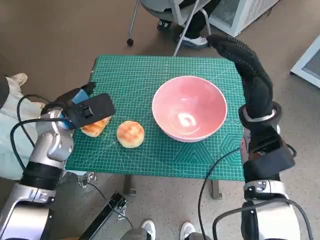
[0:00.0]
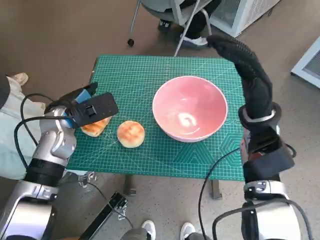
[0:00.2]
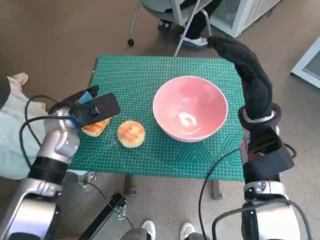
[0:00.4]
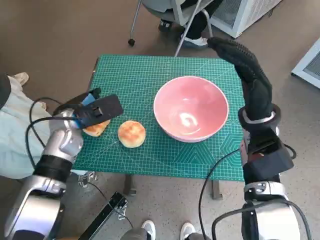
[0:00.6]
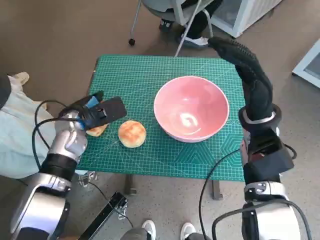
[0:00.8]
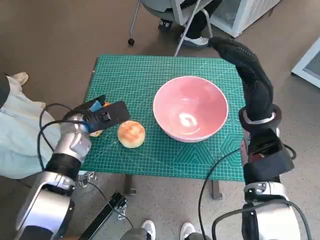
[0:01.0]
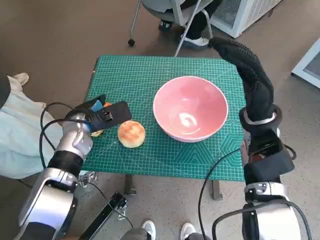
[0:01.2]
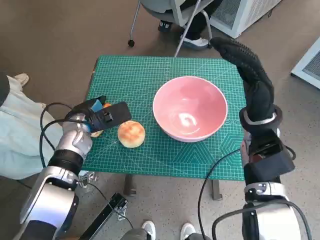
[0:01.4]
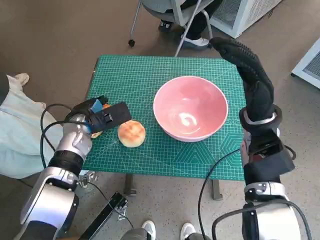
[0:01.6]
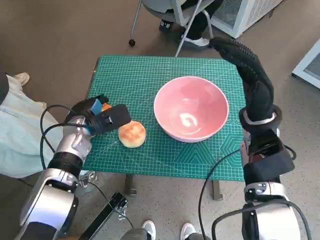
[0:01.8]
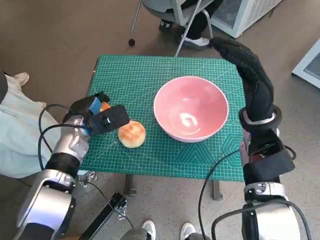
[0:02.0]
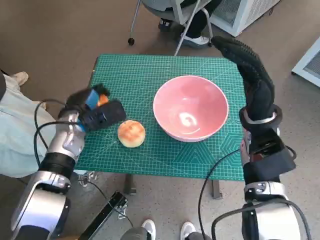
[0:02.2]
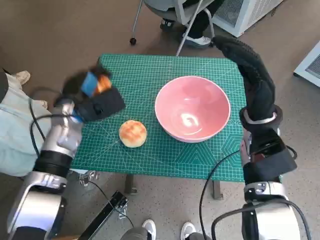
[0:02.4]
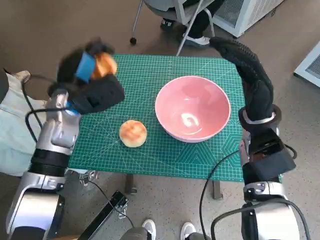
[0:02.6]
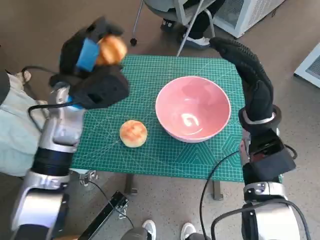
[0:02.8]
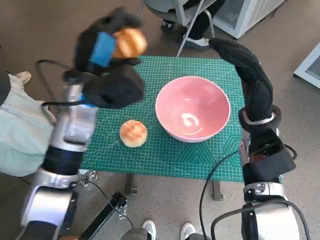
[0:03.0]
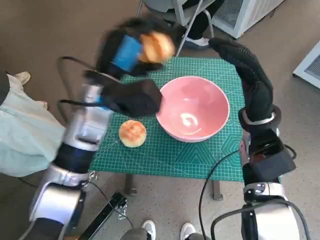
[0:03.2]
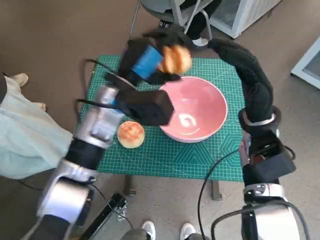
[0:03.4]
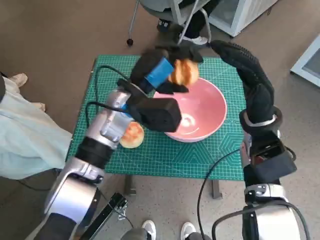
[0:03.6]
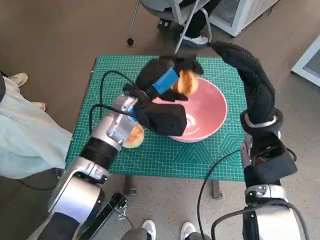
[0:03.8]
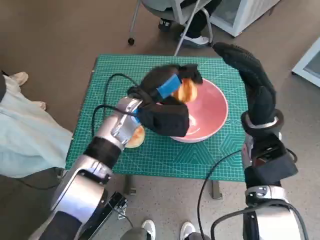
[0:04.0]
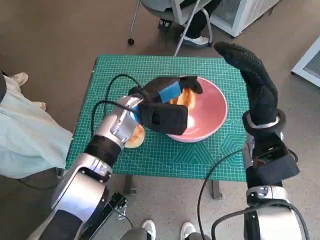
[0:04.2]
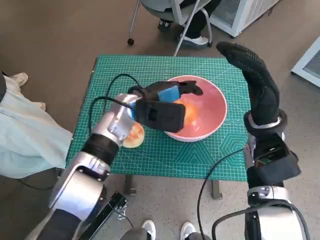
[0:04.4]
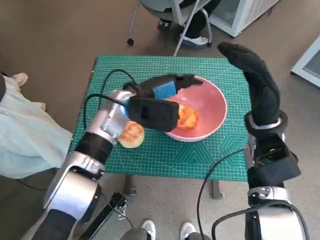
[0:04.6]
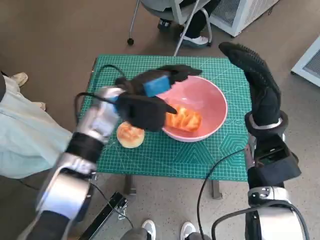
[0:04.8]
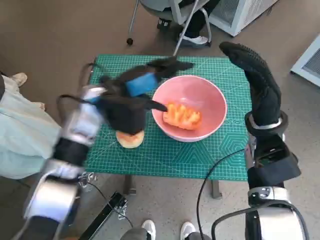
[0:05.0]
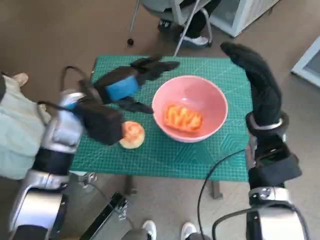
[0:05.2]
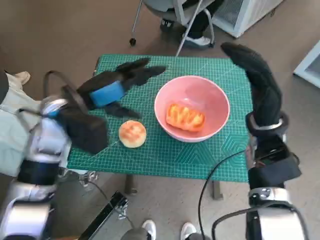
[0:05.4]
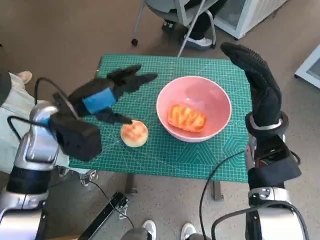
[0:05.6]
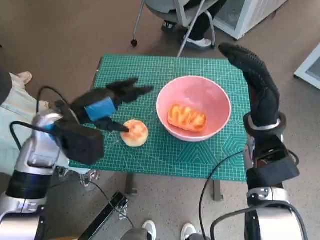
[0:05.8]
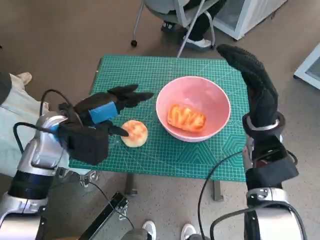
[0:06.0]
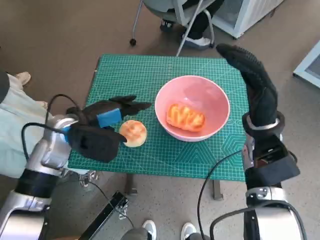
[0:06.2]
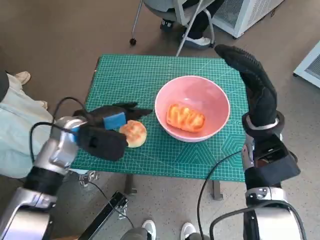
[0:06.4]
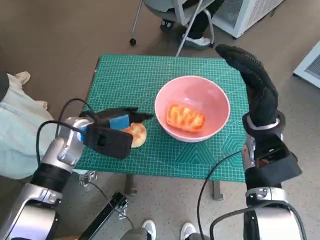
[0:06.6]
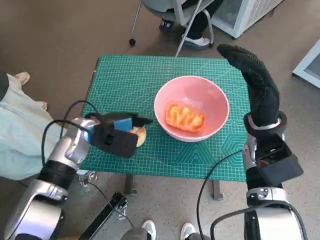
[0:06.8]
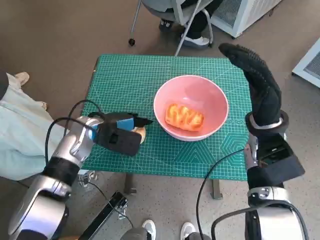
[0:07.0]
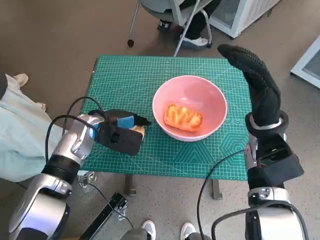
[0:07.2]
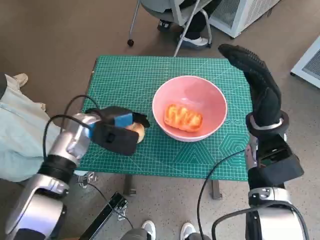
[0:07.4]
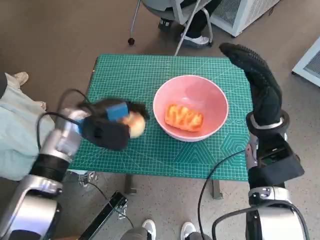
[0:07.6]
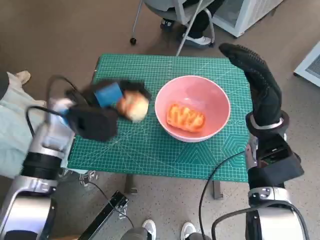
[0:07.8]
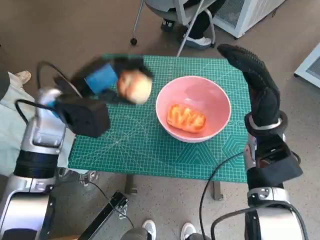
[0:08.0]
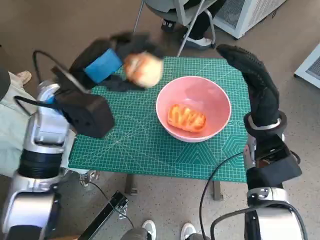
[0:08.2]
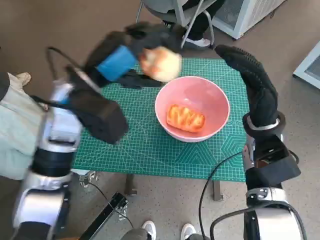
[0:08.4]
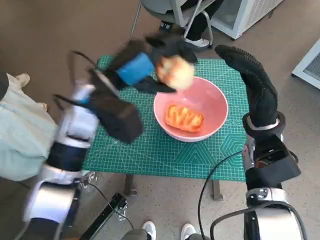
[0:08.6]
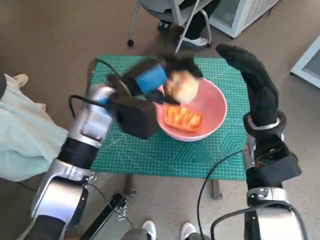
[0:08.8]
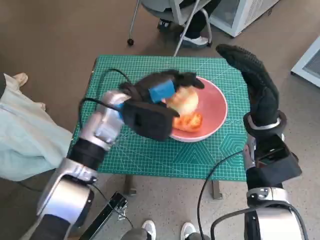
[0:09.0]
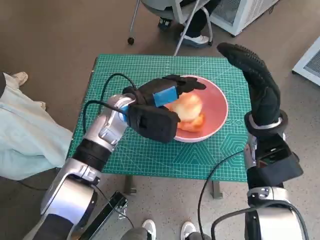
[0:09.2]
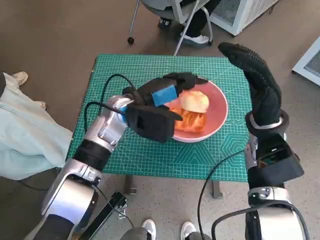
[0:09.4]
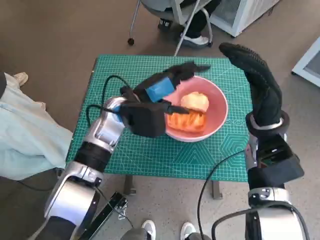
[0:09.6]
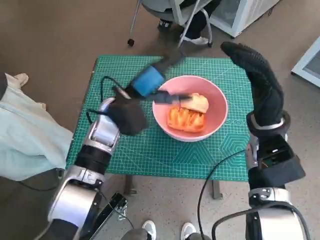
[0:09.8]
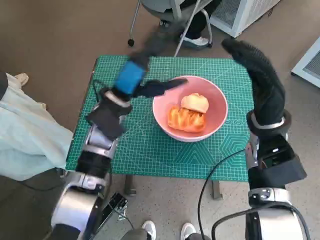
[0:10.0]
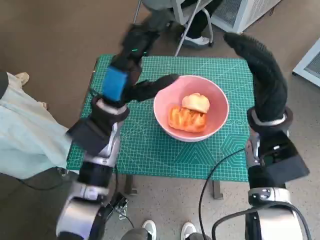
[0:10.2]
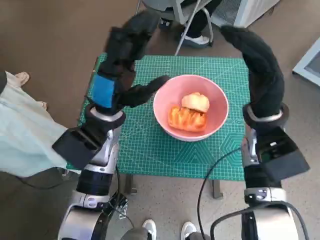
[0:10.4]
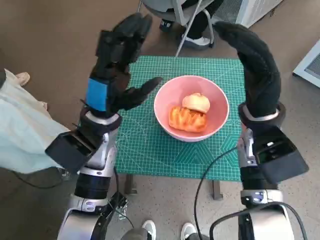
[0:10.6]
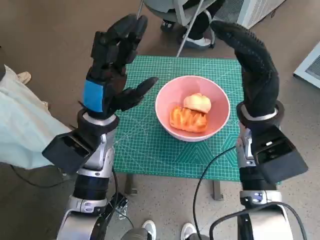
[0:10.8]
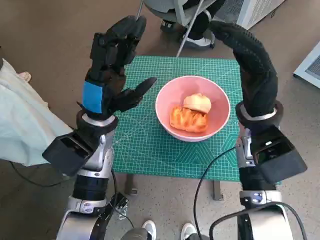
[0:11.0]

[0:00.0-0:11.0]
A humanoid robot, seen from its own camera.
Task of the whole recording: Push the bowl to the center of the table and put the bread into the bowl.
Step, 0:02.0 to 0:04.4: Place the long bread in pink bowl with left hand.
Step, 0:04.6 to 0:07.2: Grasp the round bread with left hand.
Step, 0:07.4 to 0:09.2: Place the round bread in pink bowl with left hand.
0:00.0 to 0:01.6: The left hand moves downward, approximately 5 cm.
0:01.6 to 0:03.2: The left hand moves upward and to the right, some 15 cm.
0:04.8 to 0:06.2: The left hand travels to the left and backward by some 10 cm.
0:07.8 to 0:09.4: The left hand travels to the right by roughly 10 cm.
0:09.4 to 0:11.0: The left hand is displaced backward by some 5 cm.

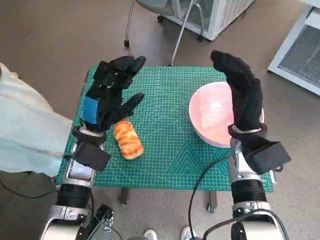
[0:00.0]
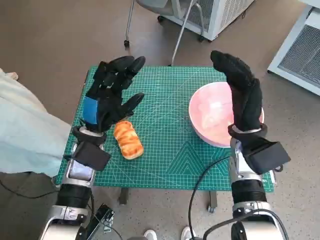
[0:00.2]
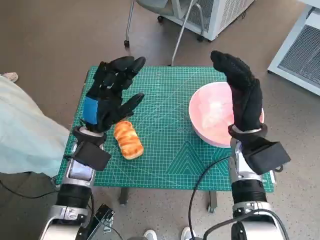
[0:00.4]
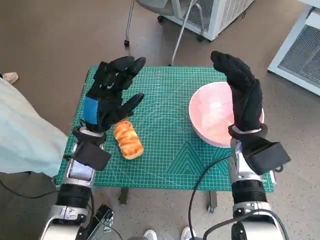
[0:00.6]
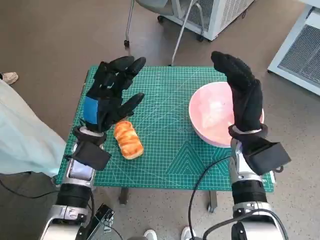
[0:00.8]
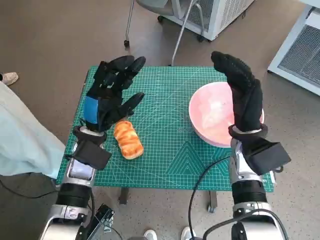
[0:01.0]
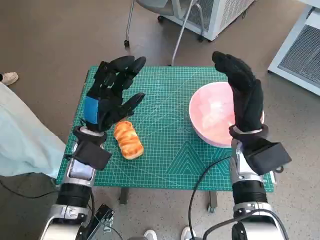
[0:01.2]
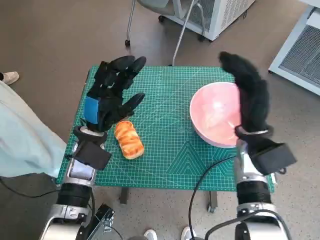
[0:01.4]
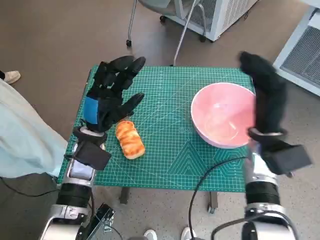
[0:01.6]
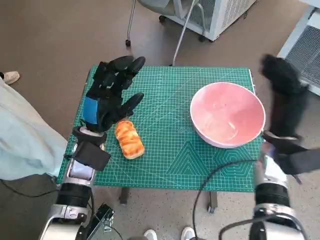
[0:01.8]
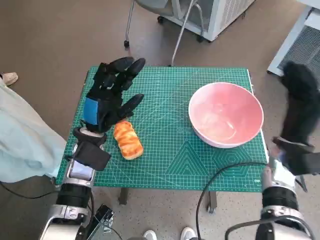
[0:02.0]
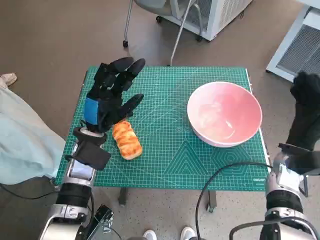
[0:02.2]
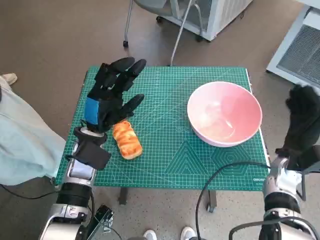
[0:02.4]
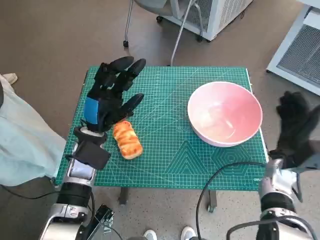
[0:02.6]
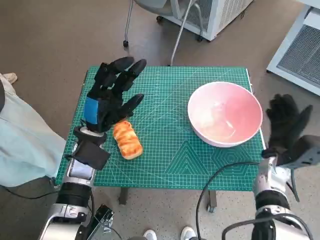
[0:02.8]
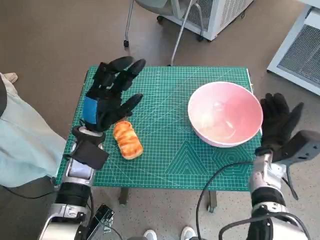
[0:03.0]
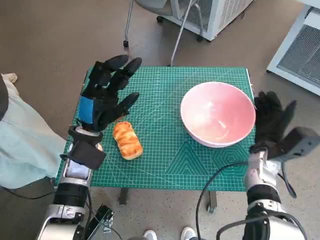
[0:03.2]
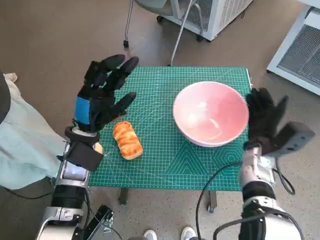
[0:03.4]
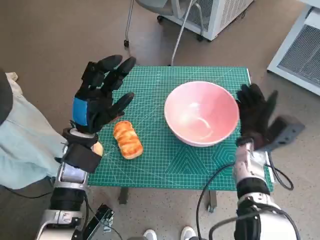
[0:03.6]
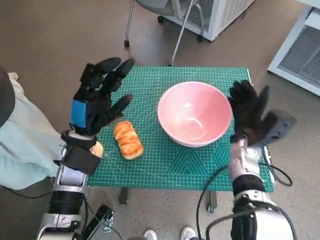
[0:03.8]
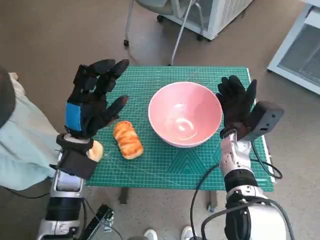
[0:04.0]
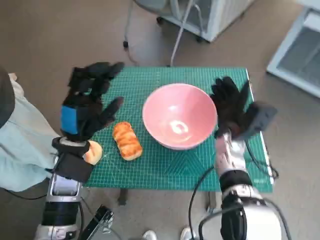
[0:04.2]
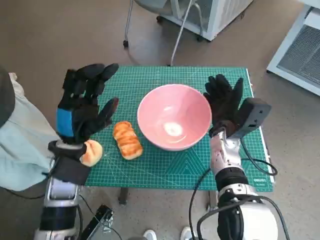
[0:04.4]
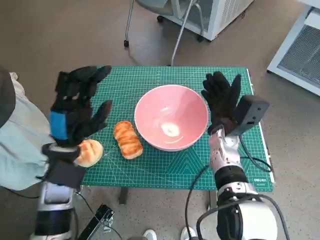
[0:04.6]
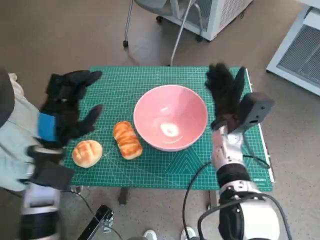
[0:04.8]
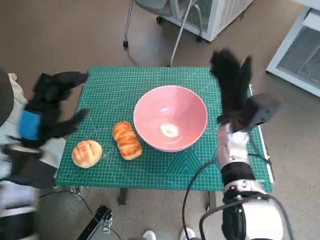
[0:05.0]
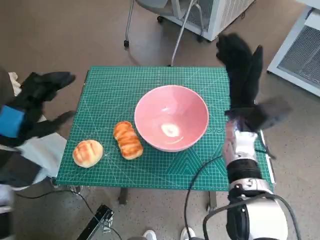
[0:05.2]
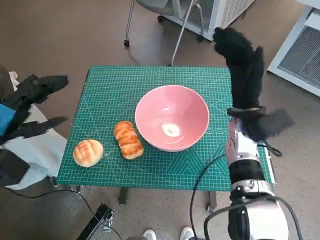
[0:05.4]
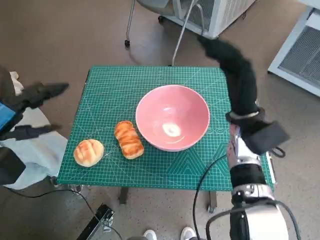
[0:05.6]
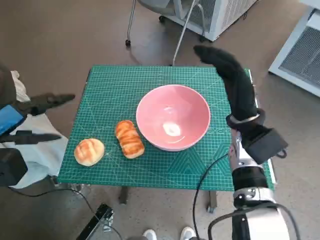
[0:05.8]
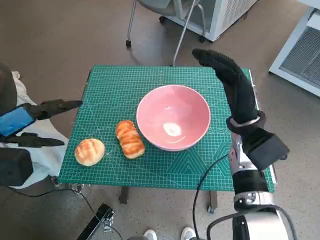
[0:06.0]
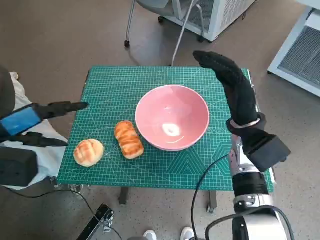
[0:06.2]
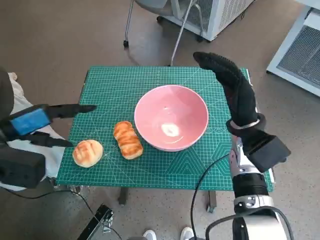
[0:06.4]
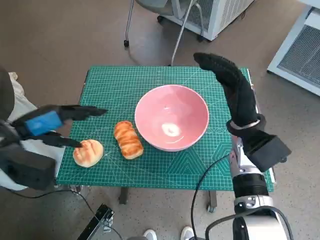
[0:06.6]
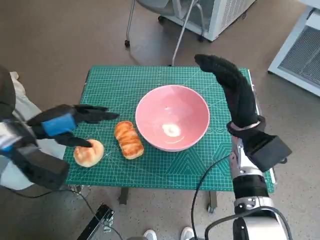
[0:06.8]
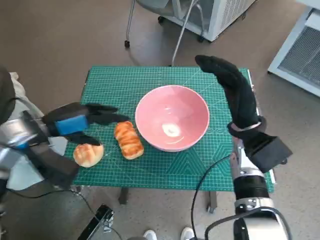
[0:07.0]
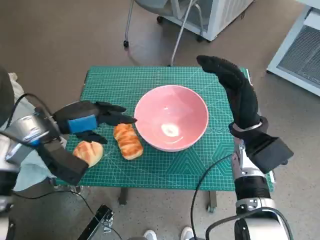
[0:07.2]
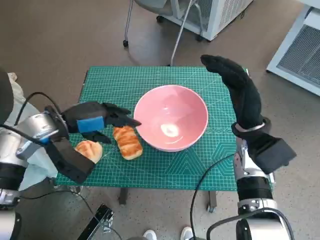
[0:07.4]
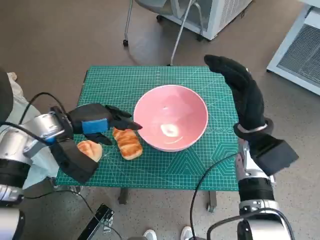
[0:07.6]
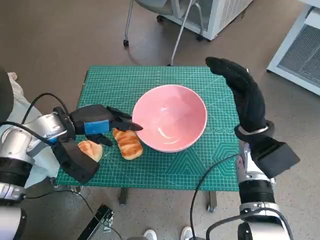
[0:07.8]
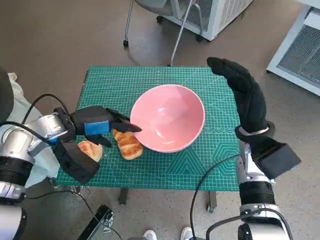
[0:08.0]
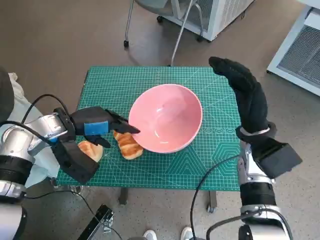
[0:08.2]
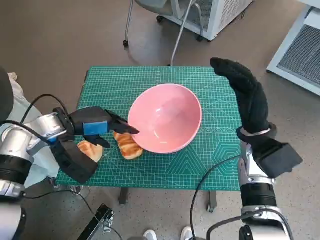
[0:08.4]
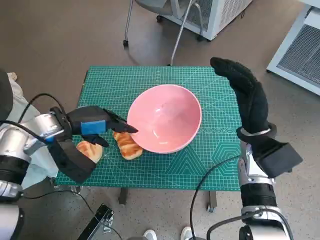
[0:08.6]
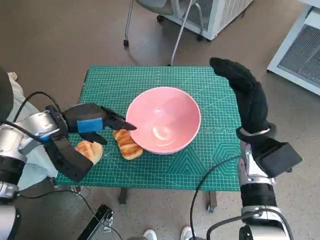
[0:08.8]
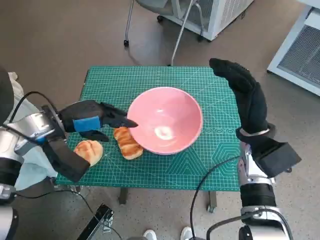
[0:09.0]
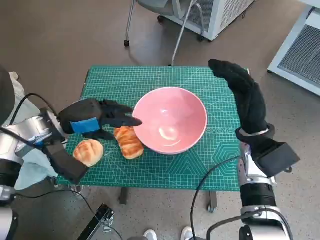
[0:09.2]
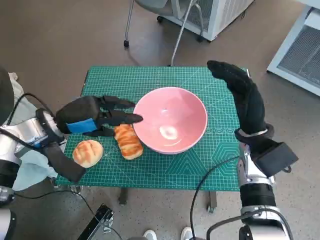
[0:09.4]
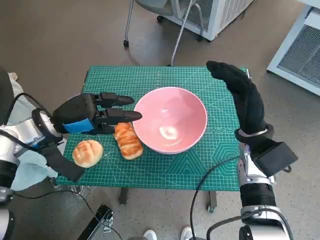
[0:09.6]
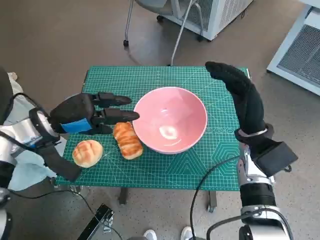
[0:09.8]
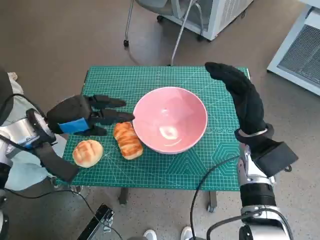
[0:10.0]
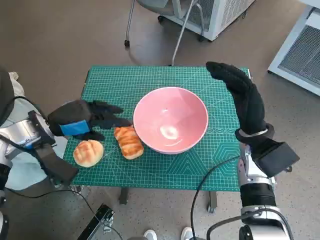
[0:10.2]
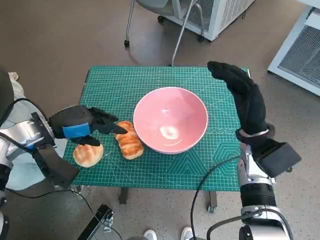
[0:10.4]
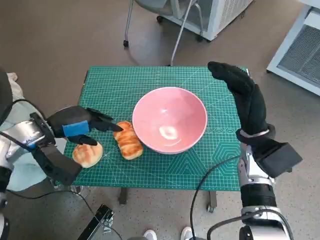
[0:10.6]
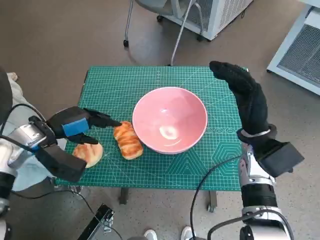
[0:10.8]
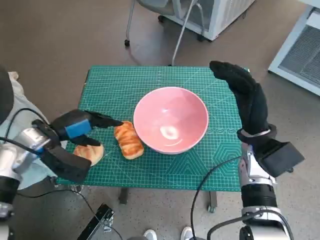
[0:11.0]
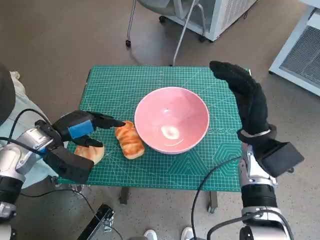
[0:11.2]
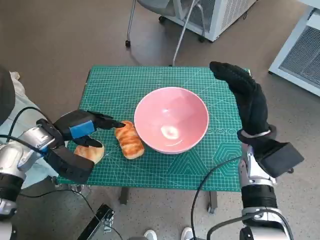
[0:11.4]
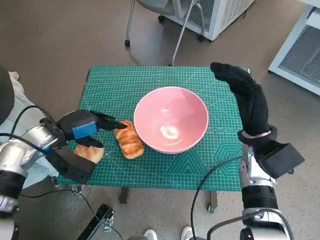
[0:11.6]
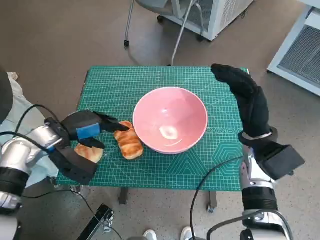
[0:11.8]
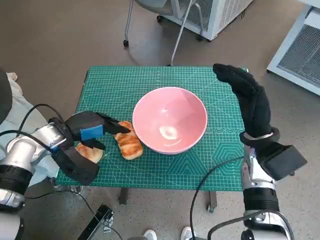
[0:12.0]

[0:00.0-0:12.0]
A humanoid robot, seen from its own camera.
Task of the whole recording: Push the bowl to the center of the table and put the bread into the bowl.
Step, 0:00.0 to 0:04.8: Move the pink bowl to the center of table with right hand.
0:01.6 to 0:03.0: The right hand shifts approximately 10 cm downward.
0:03.0 to 0:04.4: The right hand goes roughly 10 cm to the left.
0:04.4 to 0:06.0: The left hand goes roughly 15 cm to the left and upward. The right hand is displaced upward by approximately 5 cm.
0:06.0 to 0:07.6: The left hand moves to the right, forward and downward, about 15 cm.
0:07.6 to 0:09.0: Both hands stay about where they are.
